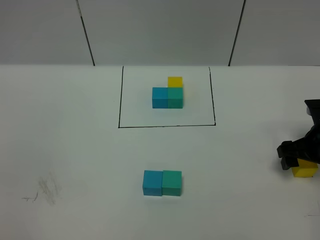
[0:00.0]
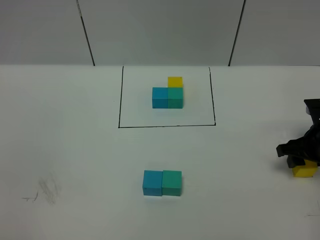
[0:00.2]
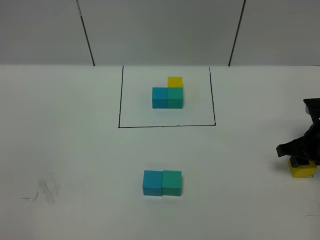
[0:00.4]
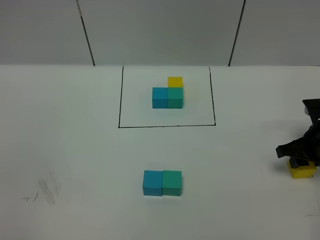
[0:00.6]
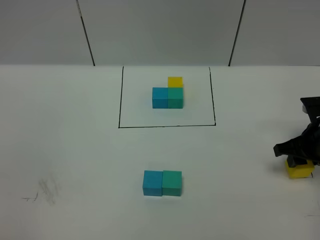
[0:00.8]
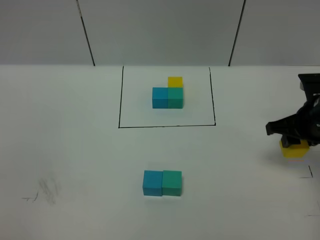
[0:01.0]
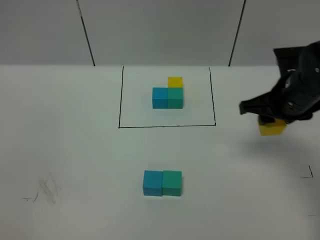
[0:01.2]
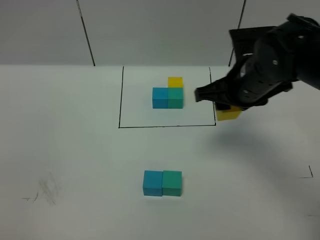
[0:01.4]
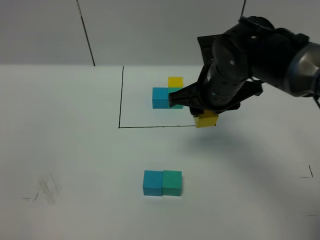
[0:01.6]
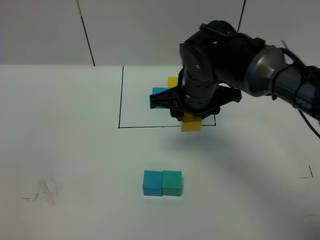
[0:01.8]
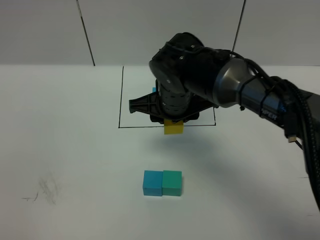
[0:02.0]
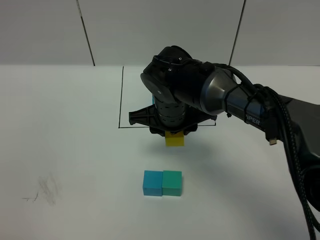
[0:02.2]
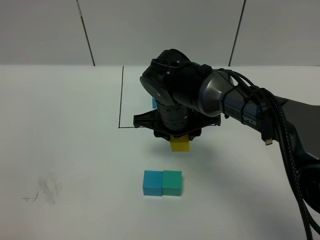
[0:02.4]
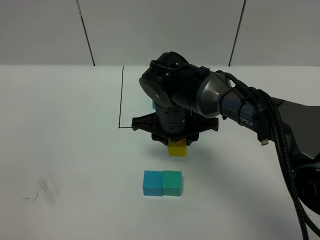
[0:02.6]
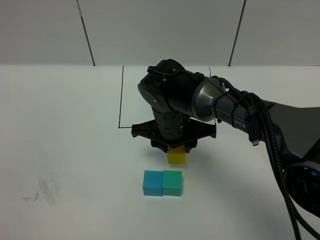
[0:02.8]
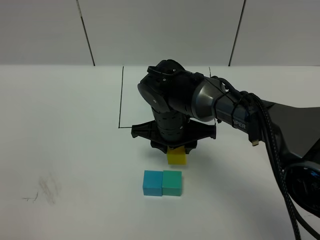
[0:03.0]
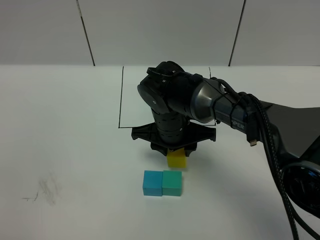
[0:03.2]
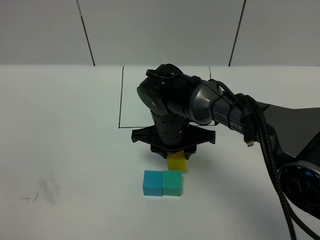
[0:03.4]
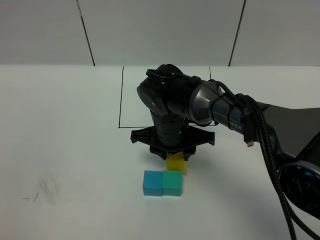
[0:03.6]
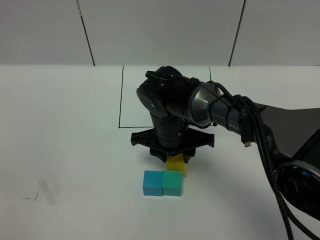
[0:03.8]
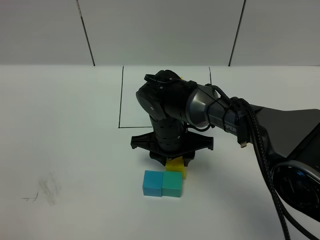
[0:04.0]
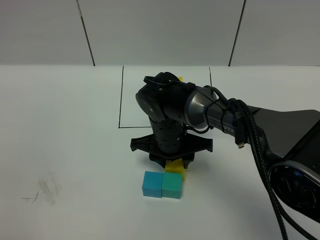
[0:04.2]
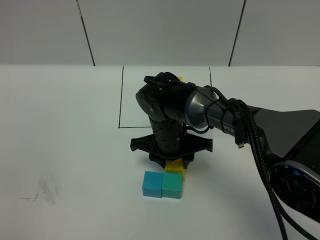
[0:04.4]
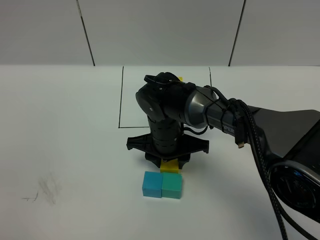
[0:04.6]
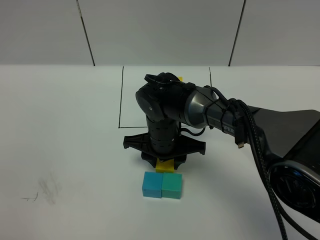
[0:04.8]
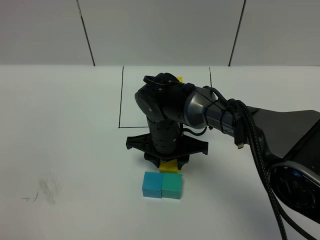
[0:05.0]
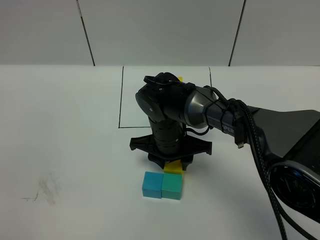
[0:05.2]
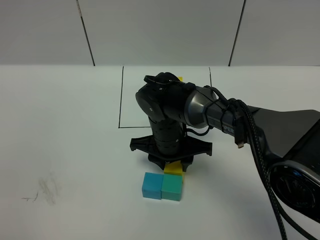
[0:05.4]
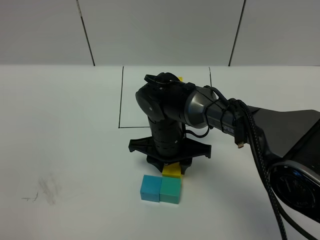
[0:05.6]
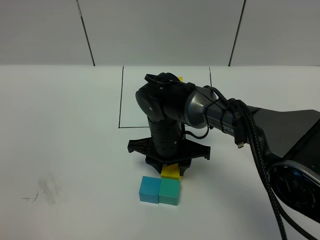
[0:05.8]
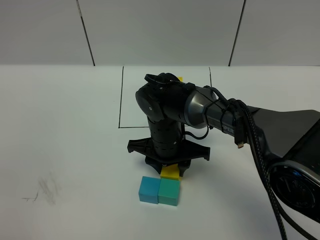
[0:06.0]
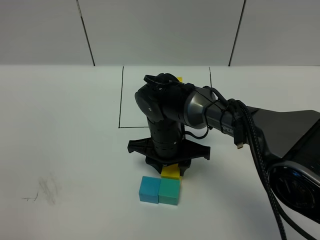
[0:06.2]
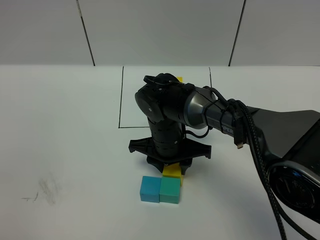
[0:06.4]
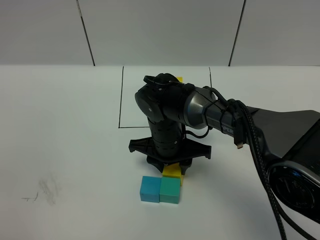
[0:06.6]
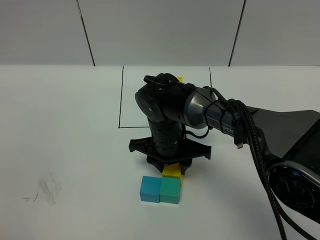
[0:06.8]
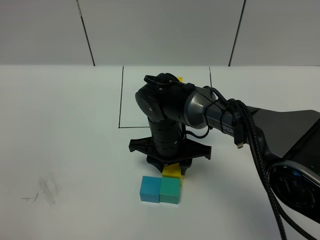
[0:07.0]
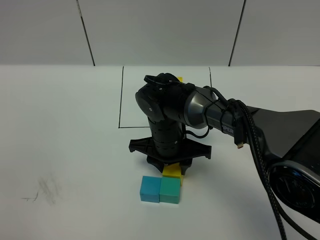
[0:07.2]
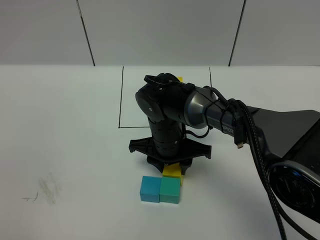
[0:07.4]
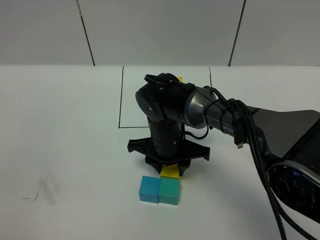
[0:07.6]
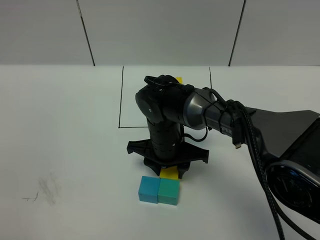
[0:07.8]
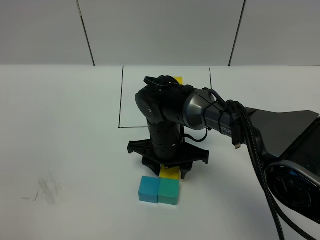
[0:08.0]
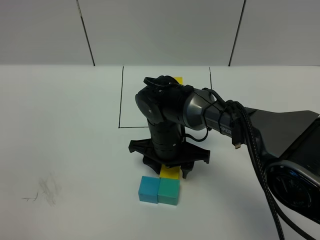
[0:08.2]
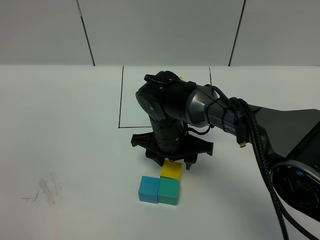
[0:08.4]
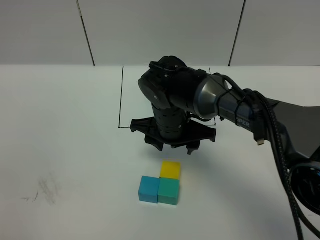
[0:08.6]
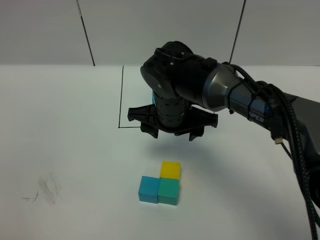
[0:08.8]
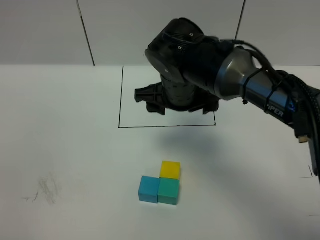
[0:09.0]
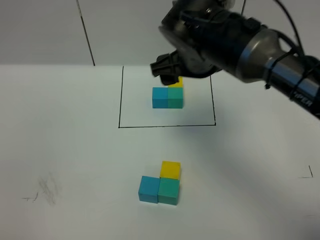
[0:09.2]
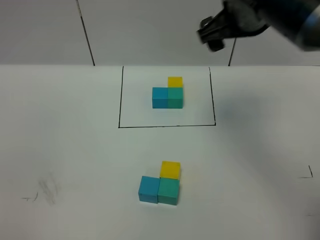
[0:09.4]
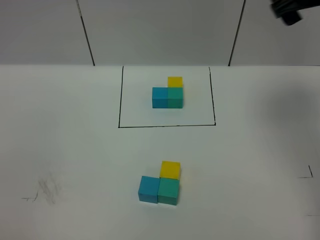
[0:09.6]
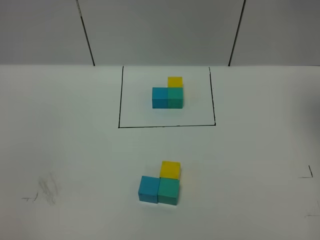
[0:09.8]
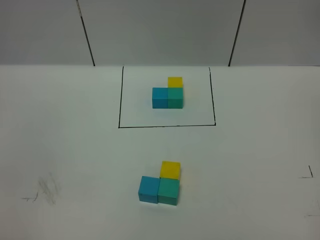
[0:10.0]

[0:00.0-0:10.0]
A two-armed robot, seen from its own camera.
Task of the whole recording: According to the building block template in front, assemble the scattered blocks together.
Step, 0:00.0 to 0:08.4: Put the yellow cube on the behind of the green cube.
0:00.0 to 0:01.4: The right gripper heads to the left and upward, covering roughly 20 cm, and closes up.
0:01.4 to 0:02.8: The right gripper moves to the left and downward, roughly 15 cm.
0:02.8 to 0:05.8: There are only small adjustments of the grippers.
0:05.8 to 0:07.2: Both grippers stay put.
0:07.2 to 0:08.6: The grippers stay close to where they were, moving slightly.
0:08.6 to 0:10.0: The right gripper heads to the right and upward, covering approximately 50 cm, and opens its fingers.
